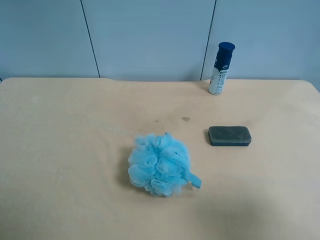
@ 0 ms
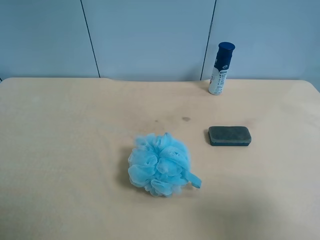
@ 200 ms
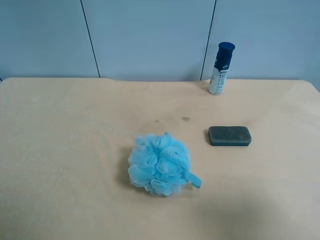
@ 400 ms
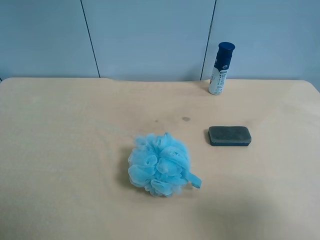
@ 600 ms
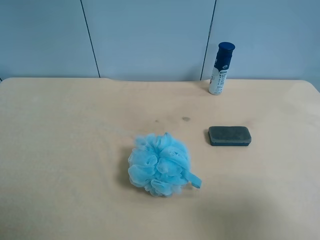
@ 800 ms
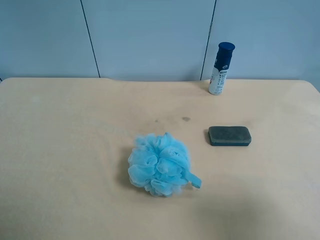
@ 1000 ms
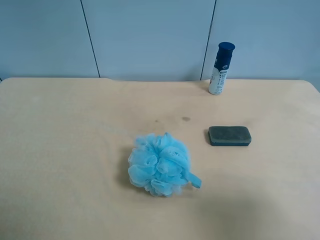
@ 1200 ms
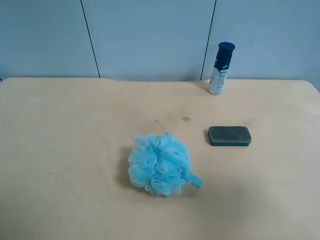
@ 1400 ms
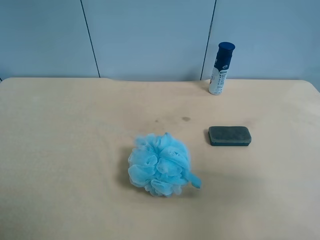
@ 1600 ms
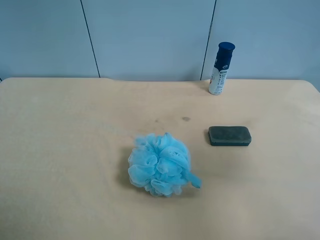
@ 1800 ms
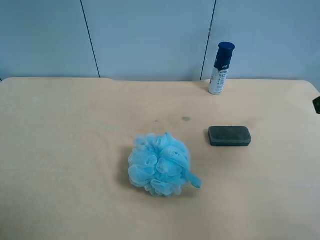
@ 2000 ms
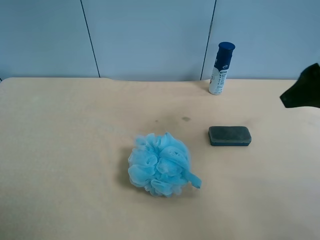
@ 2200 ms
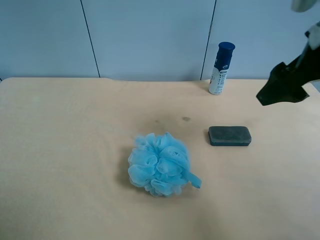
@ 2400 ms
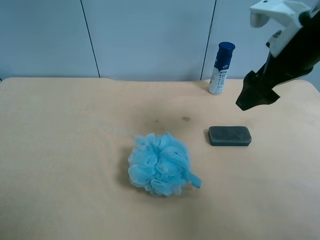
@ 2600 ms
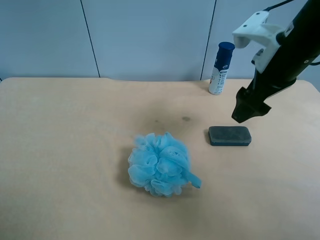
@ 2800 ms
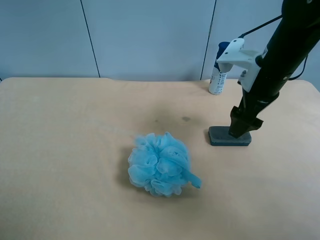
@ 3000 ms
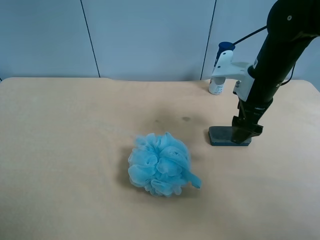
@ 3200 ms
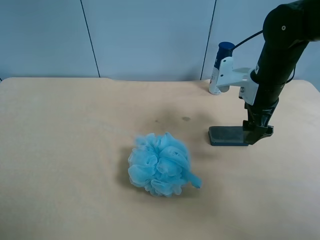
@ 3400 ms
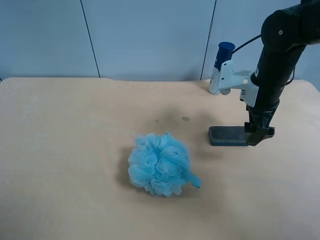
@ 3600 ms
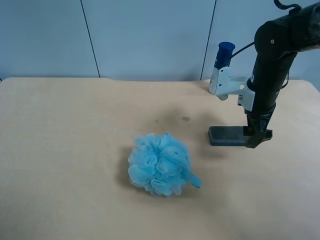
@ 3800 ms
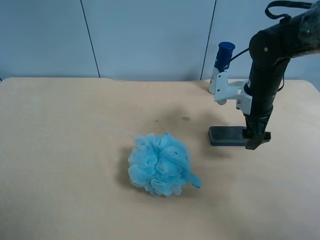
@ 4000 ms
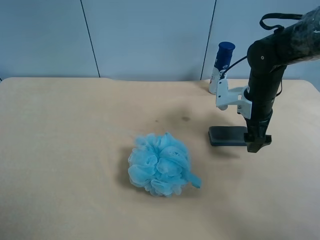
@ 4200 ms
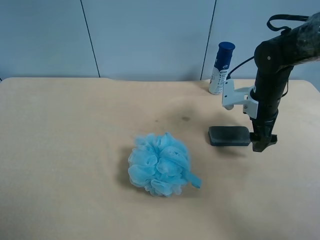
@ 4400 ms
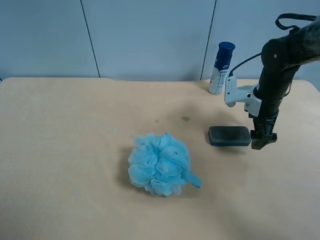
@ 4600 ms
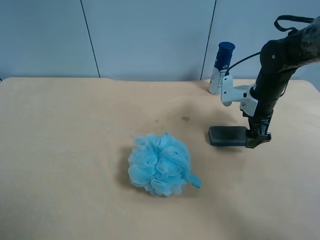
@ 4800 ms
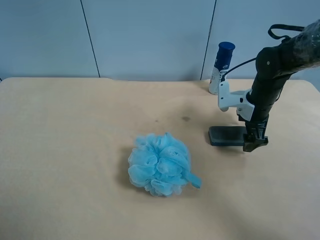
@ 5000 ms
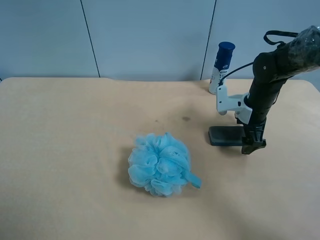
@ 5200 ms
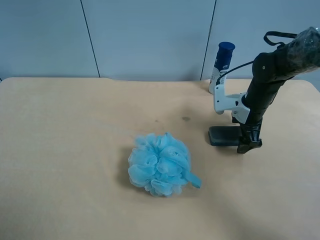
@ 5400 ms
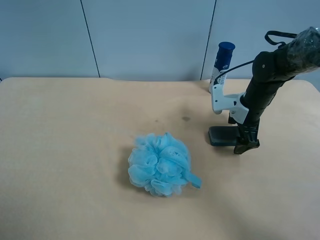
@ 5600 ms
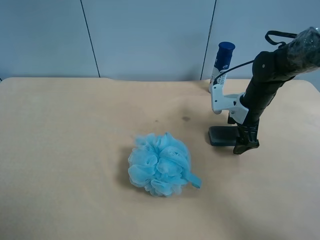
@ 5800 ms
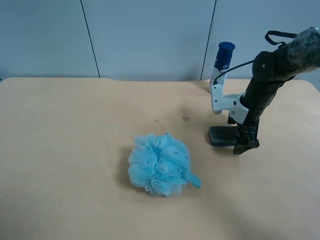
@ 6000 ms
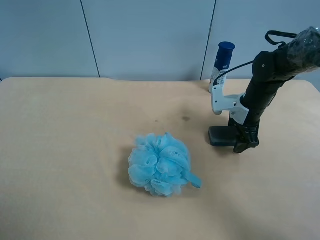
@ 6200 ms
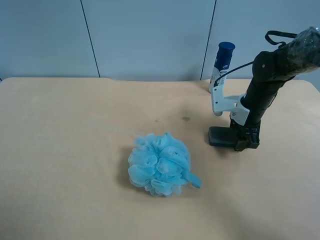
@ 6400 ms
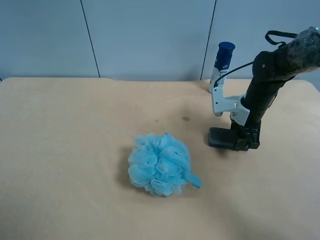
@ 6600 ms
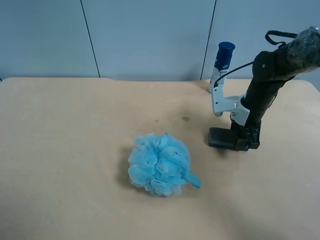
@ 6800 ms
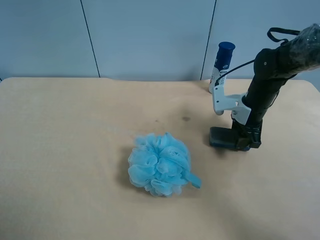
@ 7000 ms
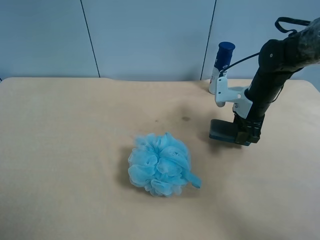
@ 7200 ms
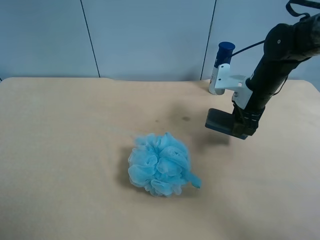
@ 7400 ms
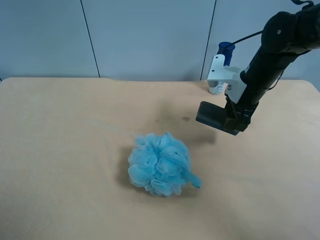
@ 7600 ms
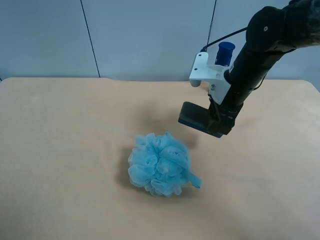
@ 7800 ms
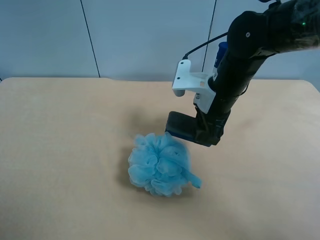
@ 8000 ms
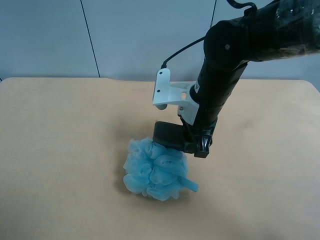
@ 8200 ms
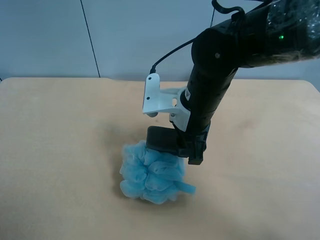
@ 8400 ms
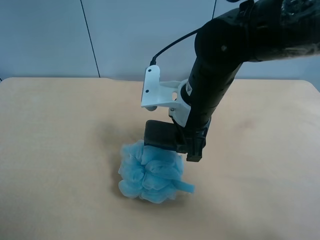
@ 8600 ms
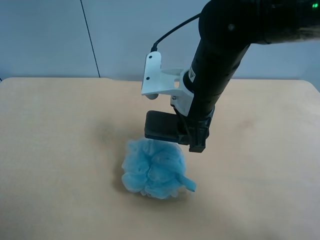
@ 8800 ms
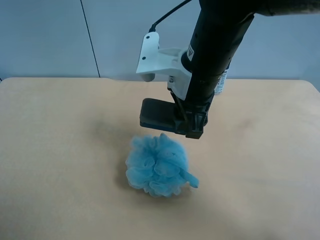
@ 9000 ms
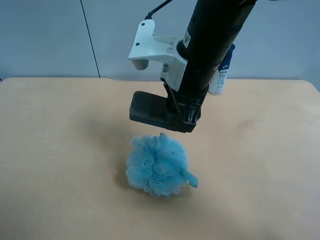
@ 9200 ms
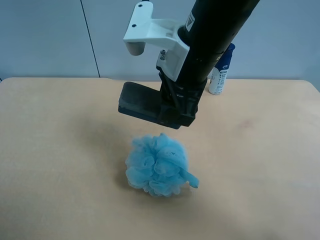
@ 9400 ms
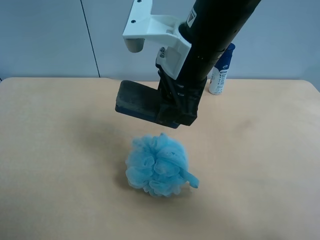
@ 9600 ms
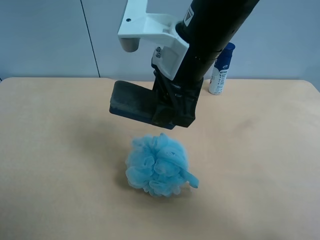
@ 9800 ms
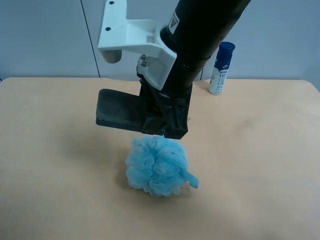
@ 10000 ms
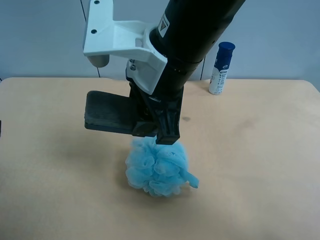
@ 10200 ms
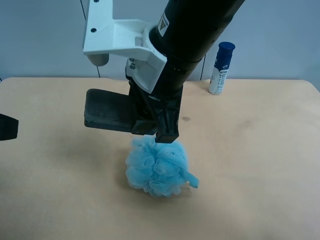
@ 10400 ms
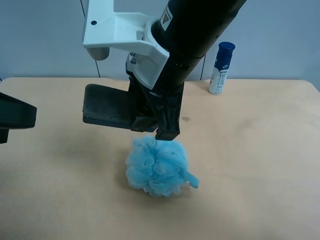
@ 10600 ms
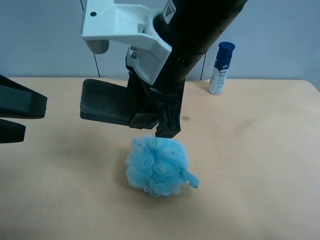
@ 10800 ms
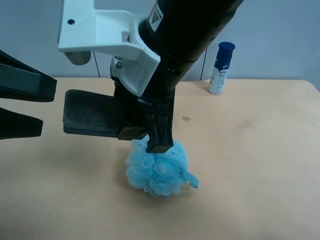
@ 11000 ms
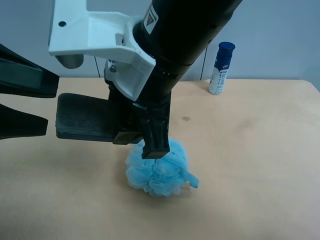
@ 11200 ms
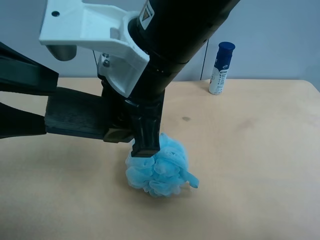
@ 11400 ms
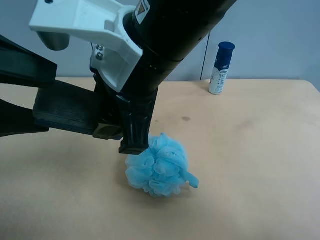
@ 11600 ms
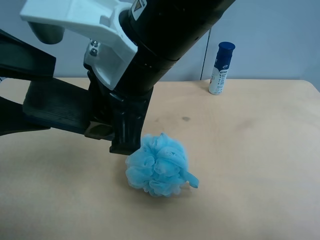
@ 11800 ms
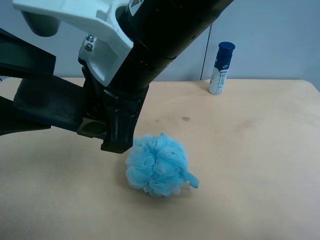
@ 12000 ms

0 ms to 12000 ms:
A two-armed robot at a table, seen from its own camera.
Task of the whole recording: use the right gripper to pick up the item and transfer it from the right gripper to the left gripper.
0 ms to 1600 ms: The right gripper heads forward, covering approximately 5 cm.
1600 ms to 3000 ms: The right gripper shifts approximately 25 cm forward, to the left and downward.
3000 ms to 4400 ms: The right gripper travels downward by roughly 10 cm.
4400 ms to 6000 ms: The grippers stay close to where they were, moving slightly.
6000 ms to 7600 ms: The right gripper shifts roughly 10 cm upward, and closes.
7600 ms to 9000 ms: The right gripper goes about 15 cm to the left, backward and upward.
9000 ms to 10400 ms: The left gripper travels forward and to the right by about 10 cm. The right gripper changes place by about 5 cm.
10400 ms to 12000 ms: The left gripper shifts by some 5 cm.

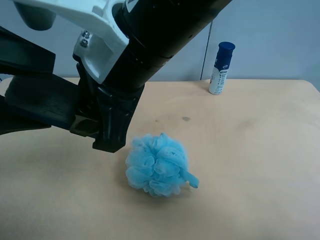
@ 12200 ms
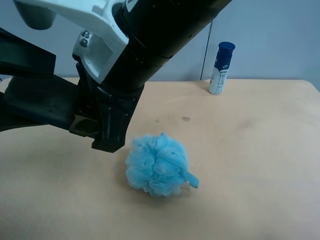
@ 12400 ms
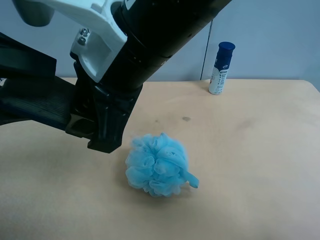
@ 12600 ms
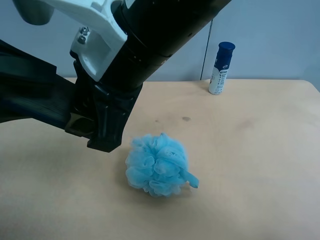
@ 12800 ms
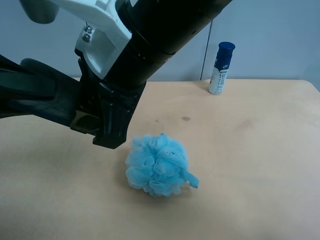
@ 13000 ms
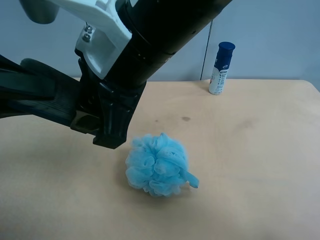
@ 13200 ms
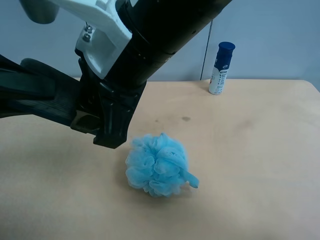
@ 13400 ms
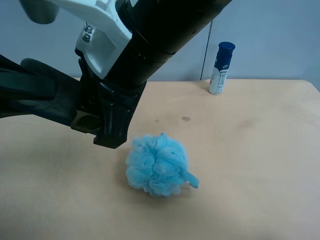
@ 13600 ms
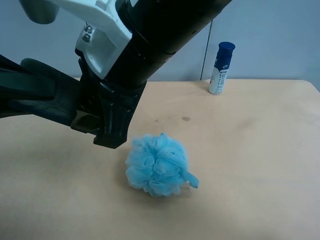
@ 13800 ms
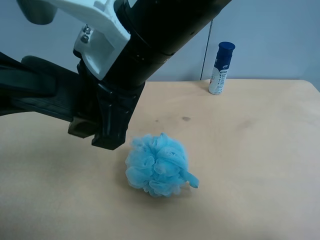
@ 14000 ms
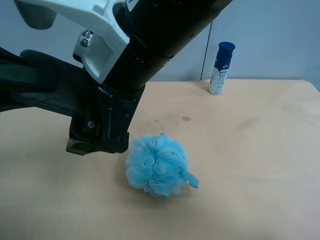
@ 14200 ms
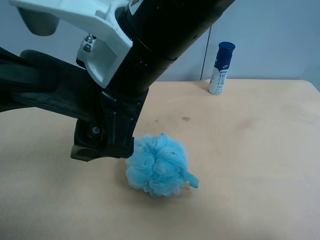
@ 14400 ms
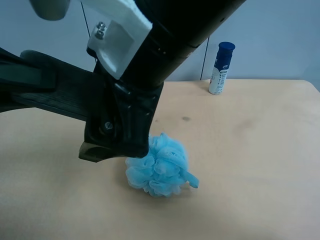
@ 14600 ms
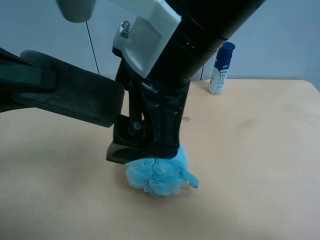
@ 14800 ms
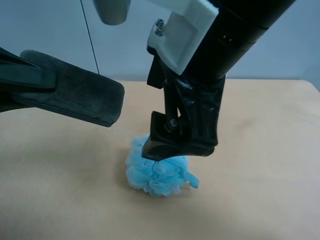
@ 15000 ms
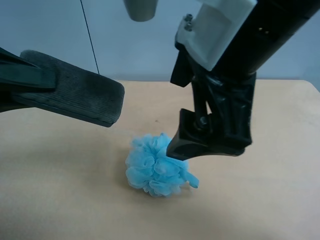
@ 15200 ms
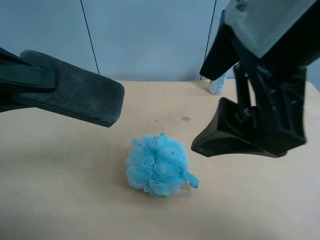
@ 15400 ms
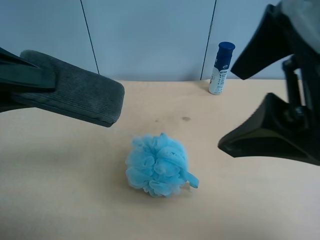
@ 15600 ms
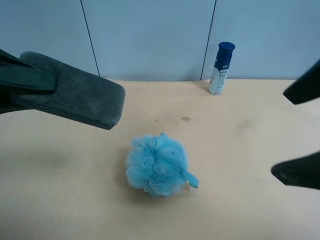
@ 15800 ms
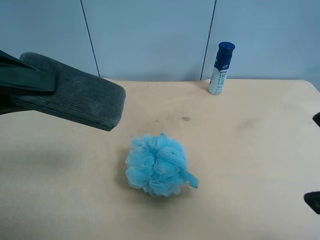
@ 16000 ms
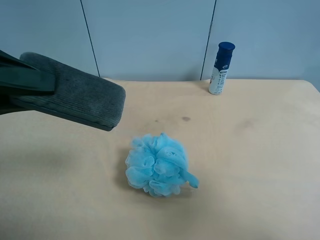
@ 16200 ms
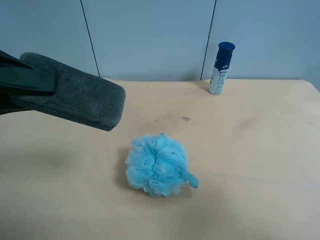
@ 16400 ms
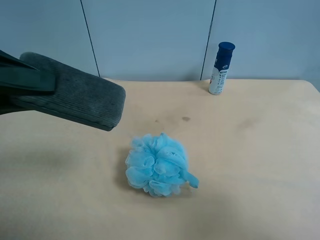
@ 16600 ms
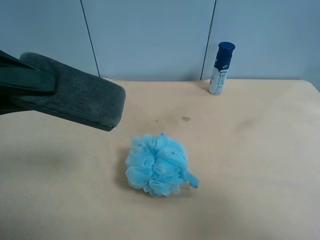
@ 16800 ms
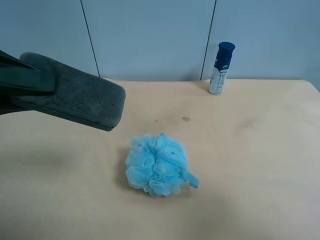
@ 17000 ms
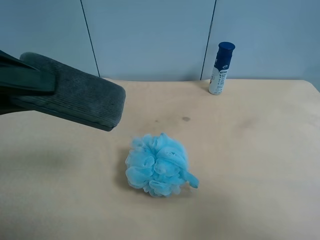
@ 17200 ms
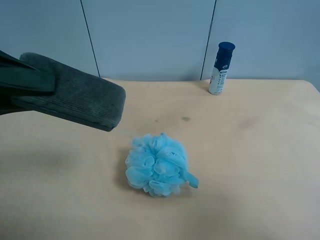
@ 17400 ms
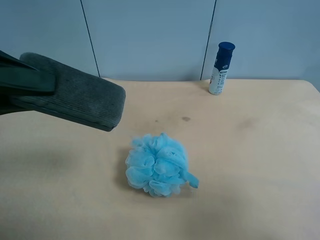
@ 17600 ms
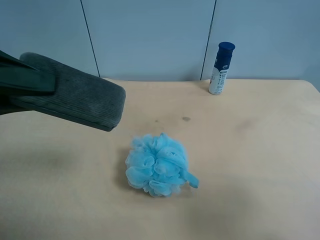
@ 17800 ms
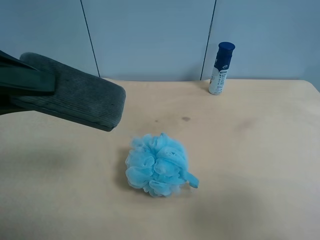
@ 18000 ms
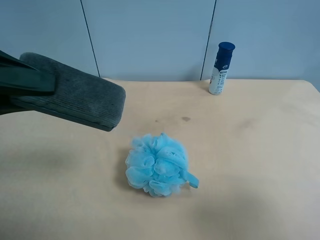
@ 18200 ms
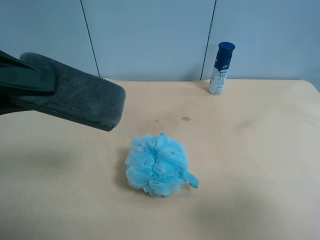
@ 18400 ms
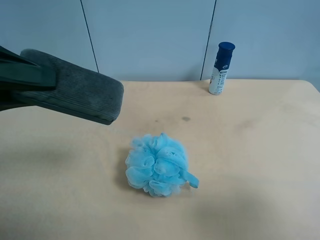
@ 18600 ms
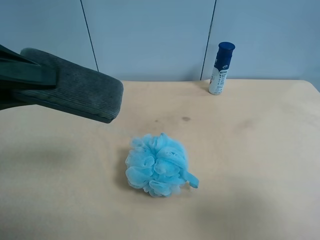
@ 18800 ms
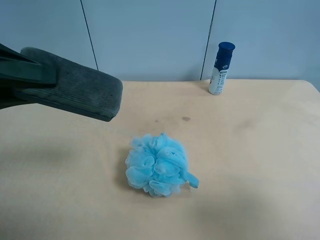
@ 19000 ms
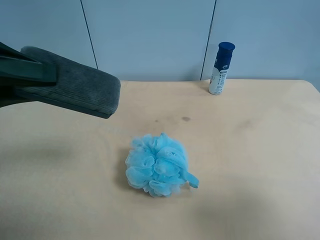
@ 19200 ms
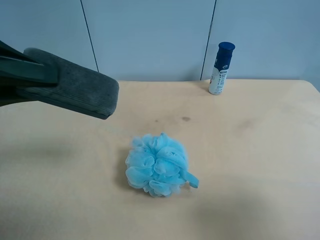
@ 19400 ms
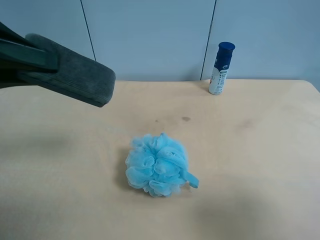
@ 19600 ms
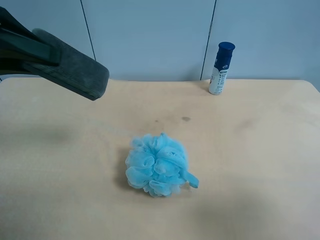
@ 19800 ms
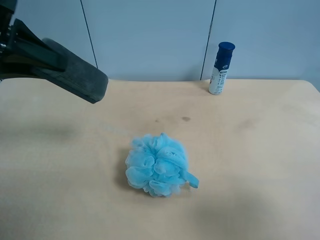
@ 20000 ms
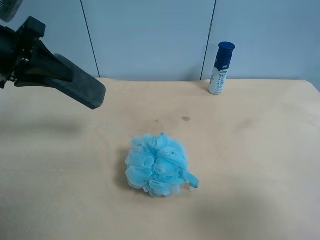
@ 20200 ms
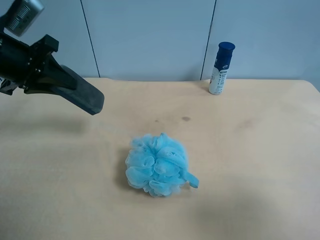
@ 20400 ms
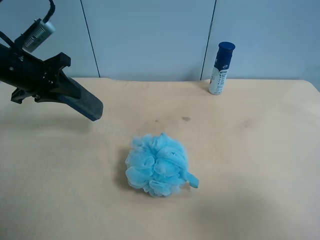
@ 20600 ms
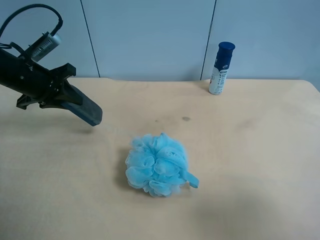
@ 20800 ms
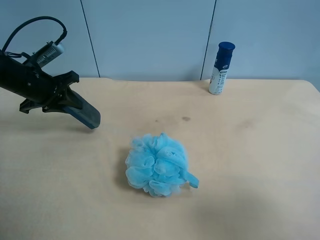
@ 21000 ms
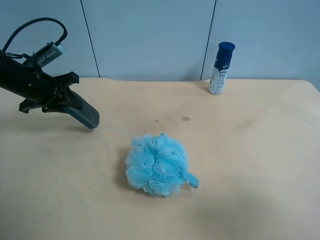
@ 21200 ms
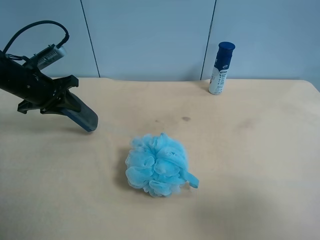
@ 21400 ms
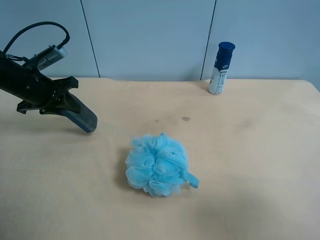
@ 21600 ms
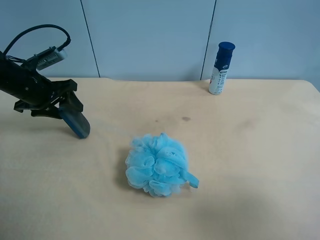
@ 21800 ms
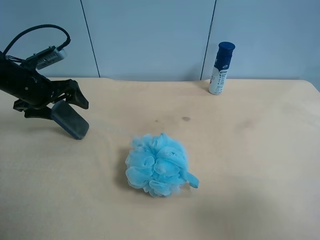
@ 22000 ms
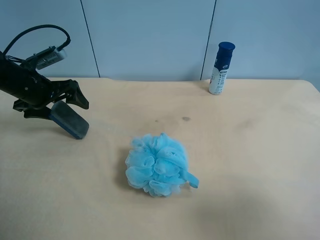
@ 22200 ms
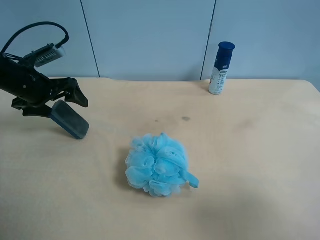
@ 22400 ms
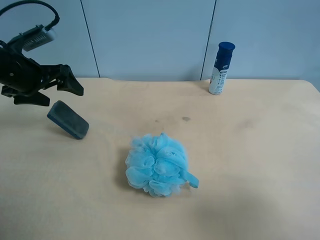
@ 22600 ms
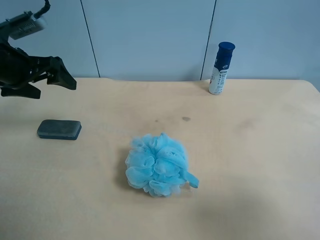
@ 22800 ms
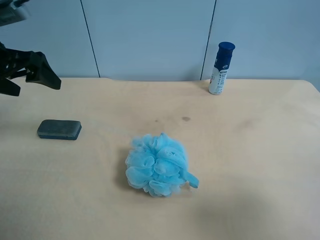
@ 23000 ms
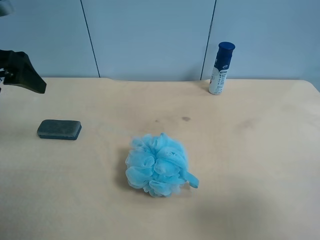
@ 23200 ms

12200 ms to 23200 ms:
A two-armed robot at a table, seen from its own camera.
Task of the whole recording: use the right gripper to pick up the item and transfer it from the right gripper to the left gripper.
12200 ms to 13800 ms: The left gripper closes.
13800 ms to 15400 ms: The right gripper goes roughly 15 cm to the right and upward, and opens its fingers.
15400 ms to 17000 ms: The right gripper is displaced to the right, backward and downward by some 25 cm.
18400 ms to 20000 ms: The left gripper shifts some 10 cm forward.
20000 ms to 21600 ms: The left gripper is displaced downward and forward by some 15 cm.
21600 ms to 23200 ms: The left gripper shifts about 15 cm upward and backward, and opens up.
